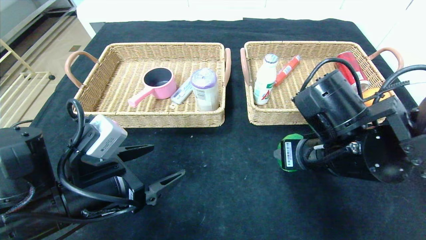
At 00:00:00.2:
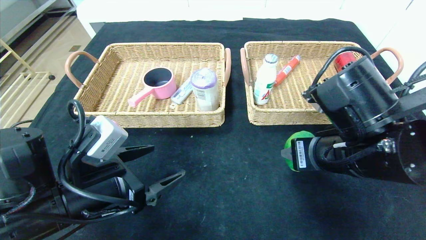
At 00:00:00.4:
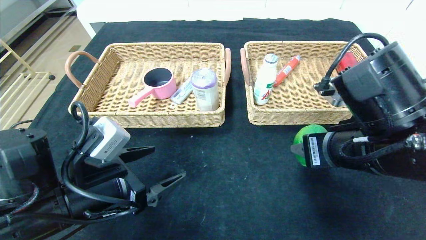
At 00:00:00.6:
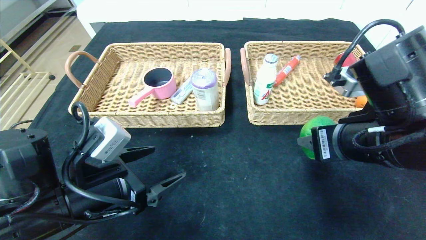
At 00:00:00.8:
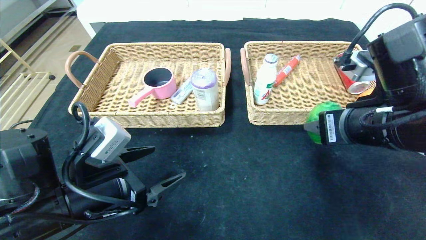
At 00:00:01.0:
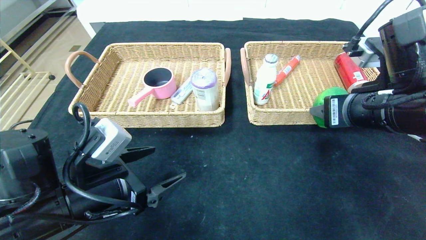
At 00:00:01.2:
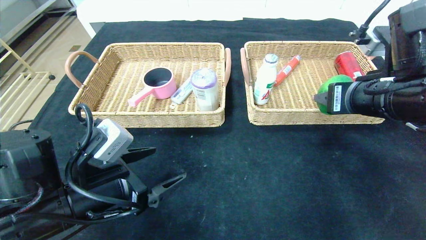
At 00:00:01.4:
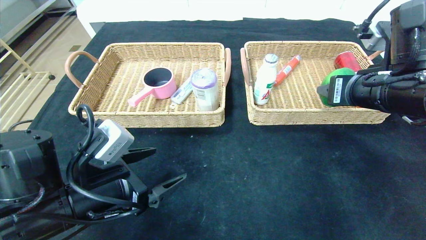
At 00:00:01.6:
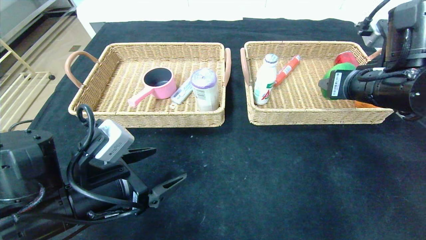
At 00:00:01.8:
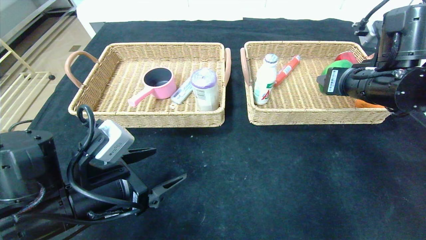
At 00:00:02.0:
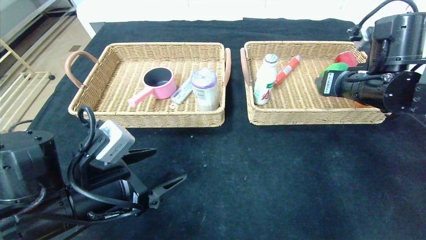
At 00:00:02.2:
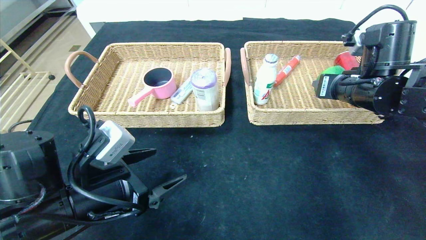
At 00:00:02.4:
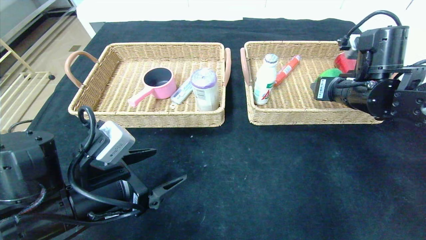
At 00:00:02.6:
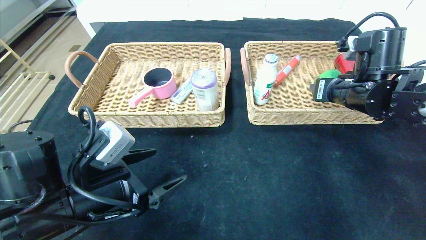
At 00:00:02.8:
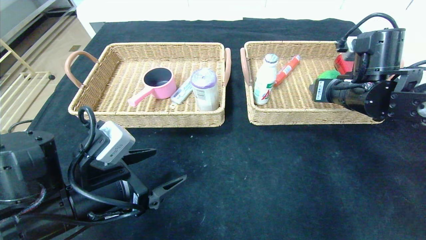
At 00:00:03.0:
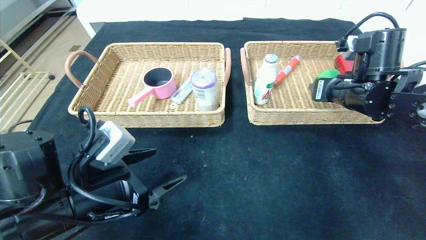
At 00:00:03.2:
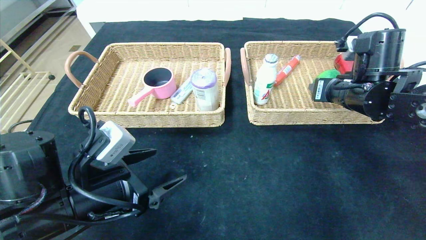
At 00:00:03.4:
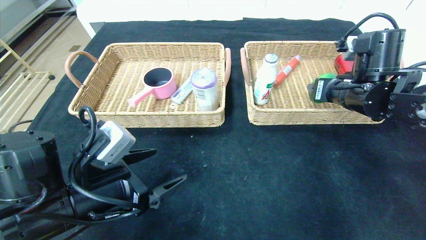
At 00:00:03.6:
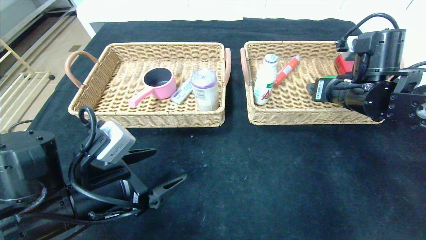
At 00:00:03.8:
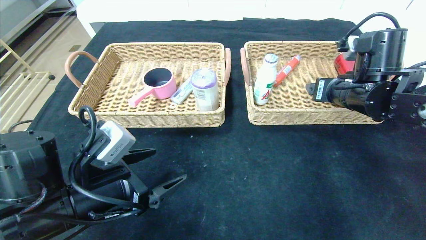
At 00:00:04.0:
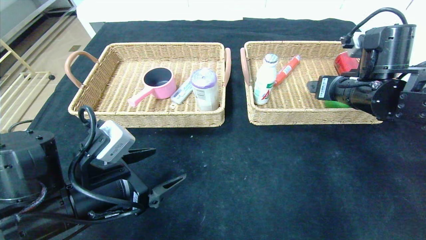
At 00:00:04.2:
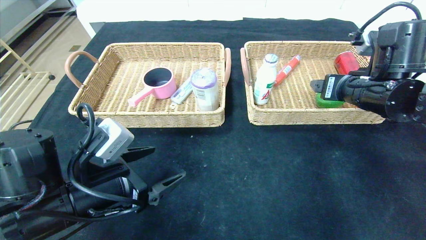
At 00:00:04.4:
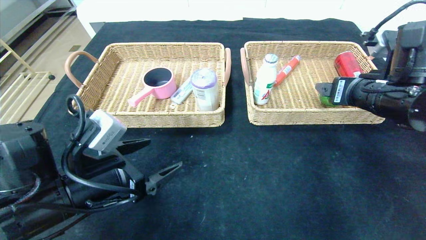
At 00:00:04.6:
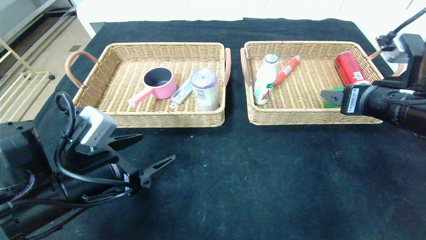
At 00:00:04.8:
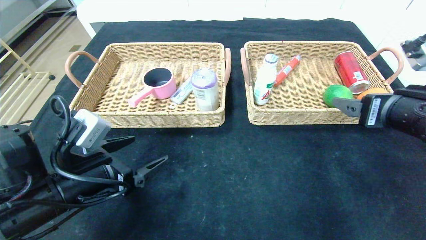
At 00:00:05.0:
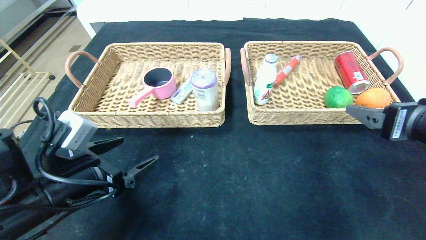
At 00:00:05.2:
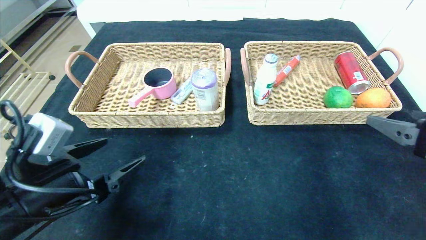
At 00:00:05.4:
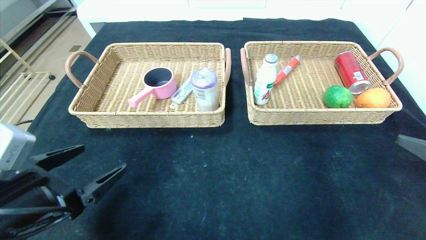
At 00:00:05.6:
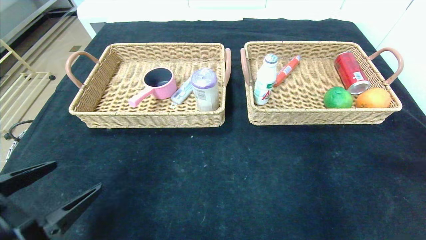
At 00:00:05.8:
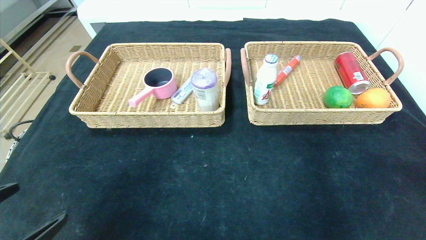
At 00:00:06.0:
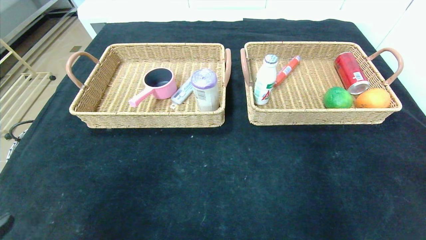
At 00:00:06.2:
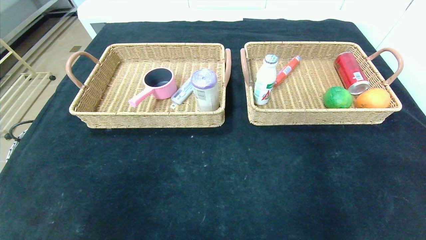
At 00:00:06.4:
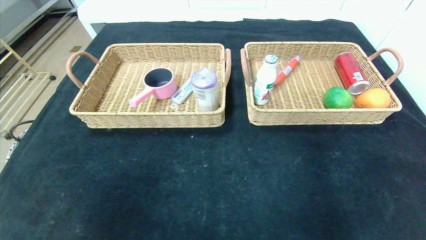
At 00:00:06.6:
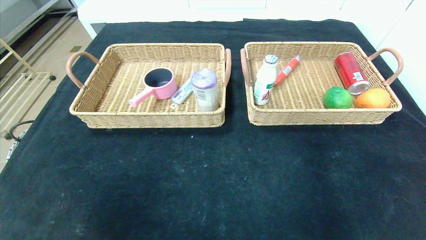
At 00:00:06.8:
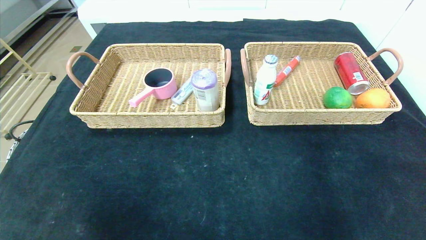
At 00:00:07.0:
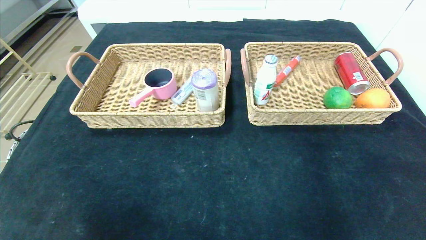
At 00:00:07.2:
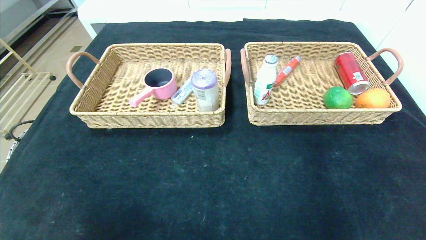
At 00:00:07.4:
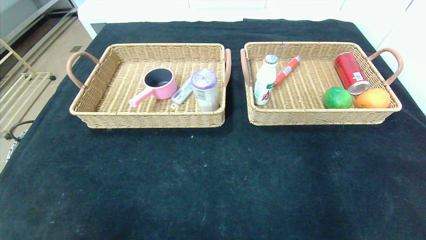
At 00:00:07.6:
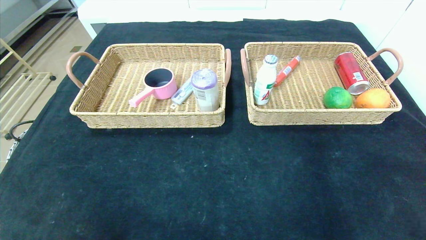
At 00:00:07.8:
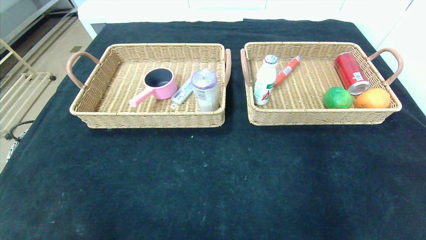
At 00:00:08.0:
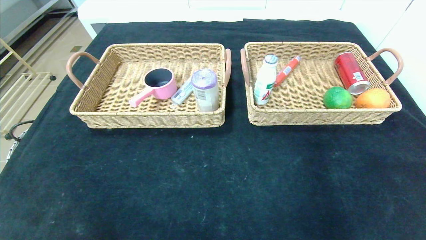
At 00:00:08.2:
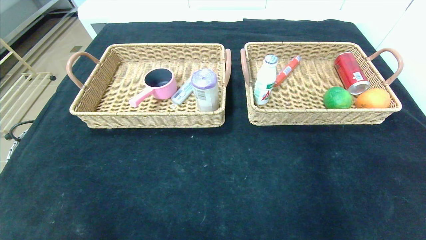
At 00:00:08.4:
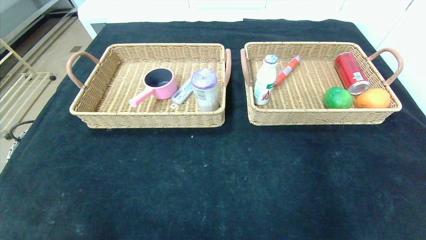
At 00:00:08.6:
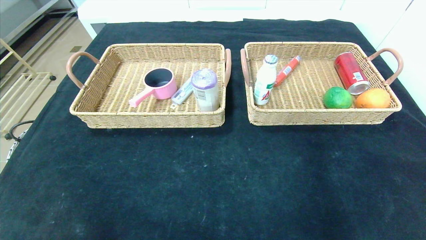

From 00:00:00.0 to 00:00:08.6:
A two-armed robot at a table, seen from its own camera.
Step, from 00:00:00.0 to 00:00:05.2: Pick up the lime and put it in the right basket.
From 00:00:00.0 to 00:00:01.4: The right gripper moves to the right and upward, roughly 10 cm.
From 00:00:01.4 to 00:00:02.8: The right gripper shifts approximately 5 cm forward.
From 00:00:02.8 to 00:00:04.4: The right gripper moves backward, approximately 5 cm, and opens up.
From 00:00:04.4 to 00:00:05.8: The right gripper heads backward and to the right, covering about 30 cm; the left gripper travels backward and to the left by roughly 20 cm.
From 00:00:05.8 to 00:00:07.2: The right gripper is displaced downward and backward by approximately 10 cm. Meanwhile the left gripper is displaced backward and downward by approximately 10 cm.
